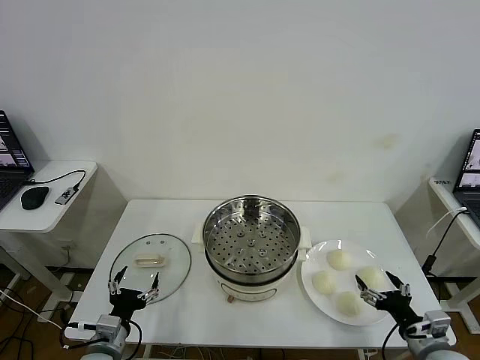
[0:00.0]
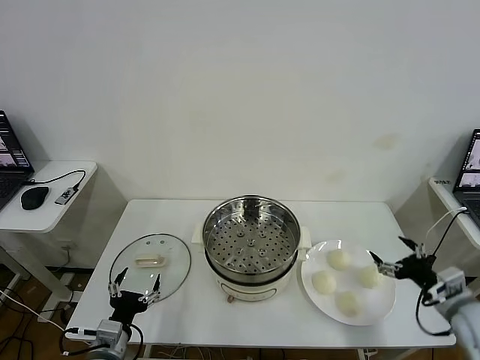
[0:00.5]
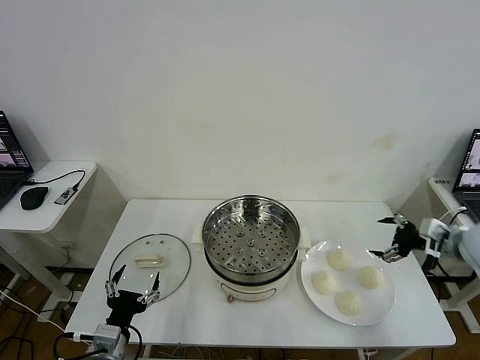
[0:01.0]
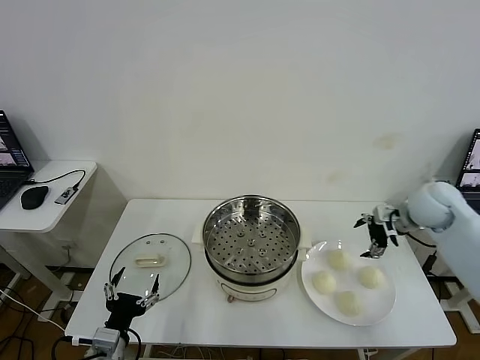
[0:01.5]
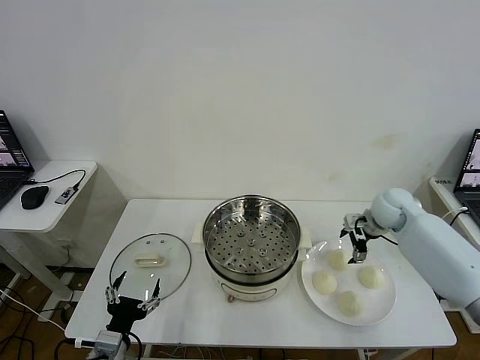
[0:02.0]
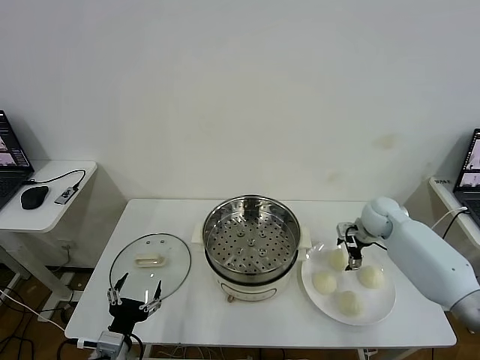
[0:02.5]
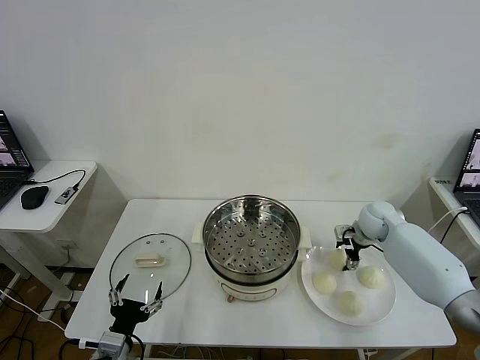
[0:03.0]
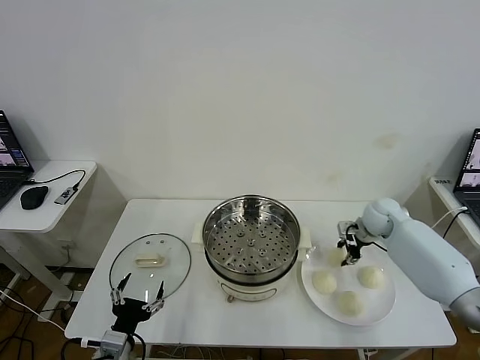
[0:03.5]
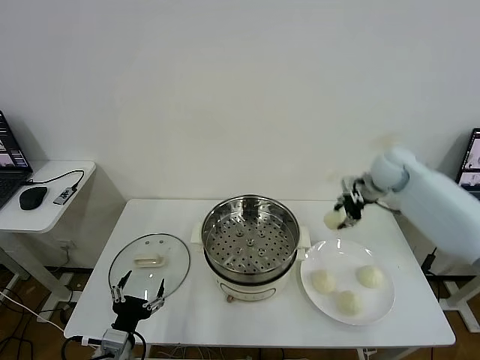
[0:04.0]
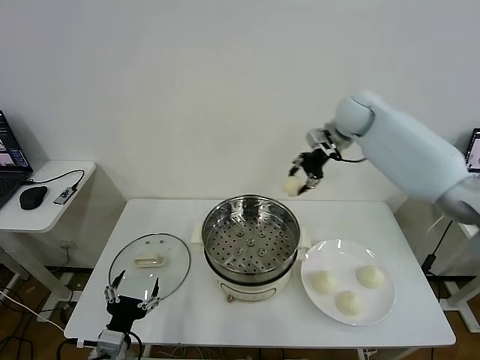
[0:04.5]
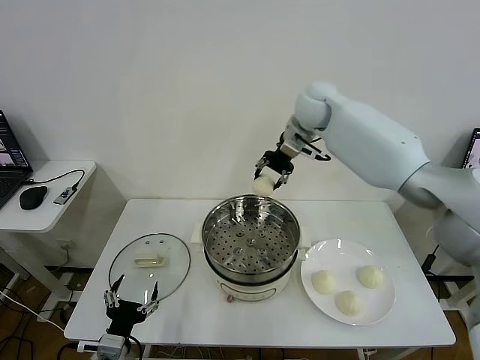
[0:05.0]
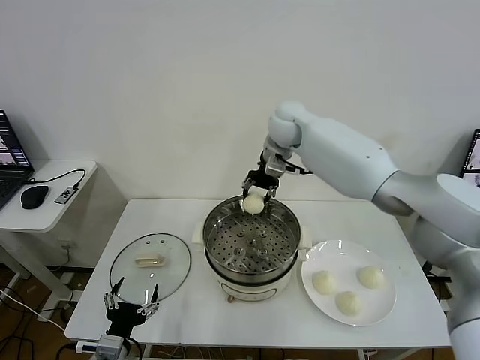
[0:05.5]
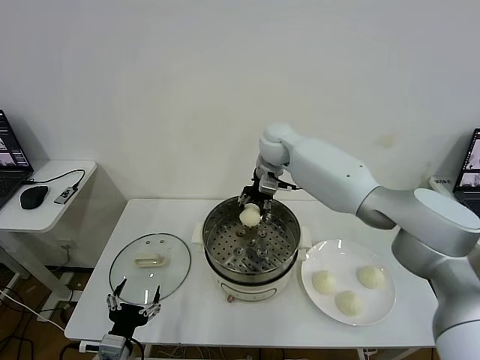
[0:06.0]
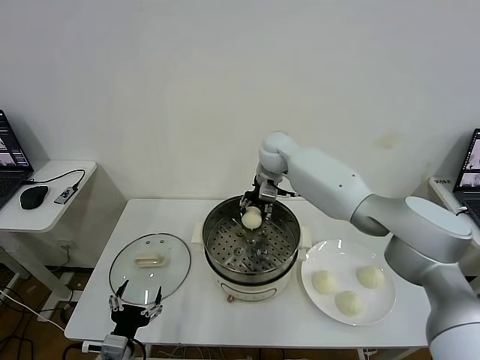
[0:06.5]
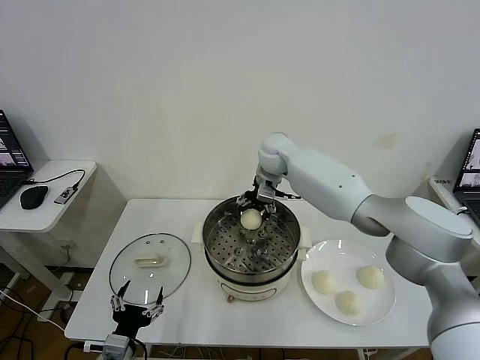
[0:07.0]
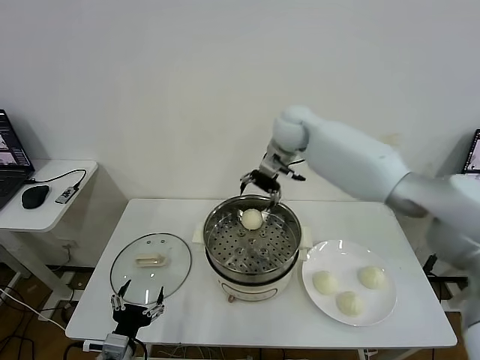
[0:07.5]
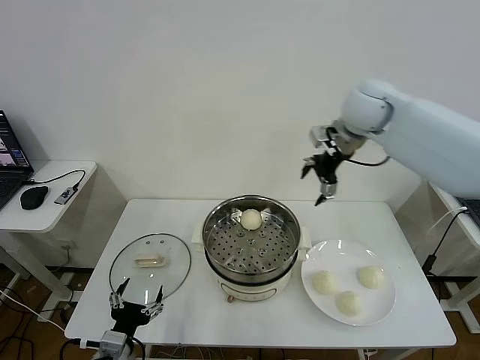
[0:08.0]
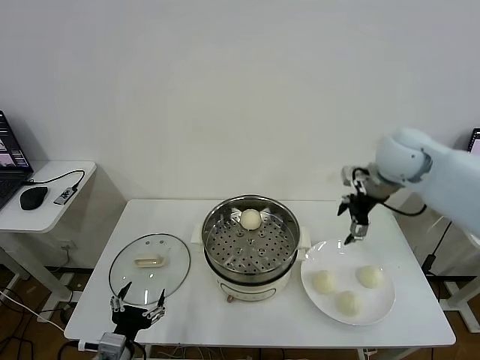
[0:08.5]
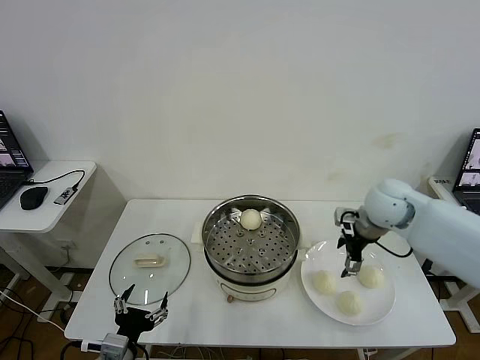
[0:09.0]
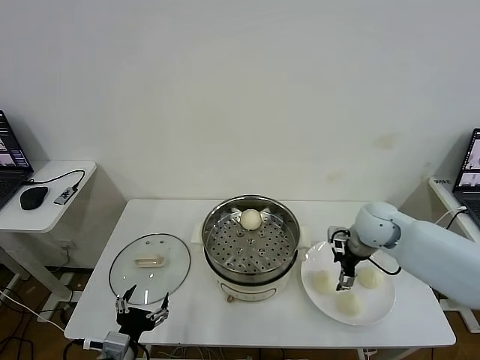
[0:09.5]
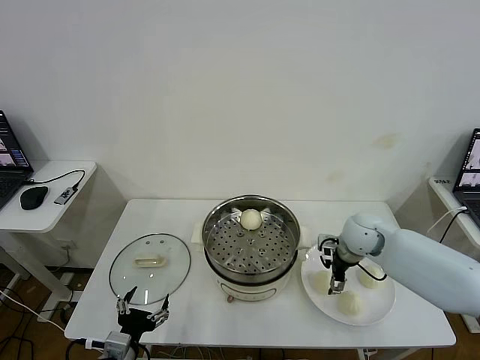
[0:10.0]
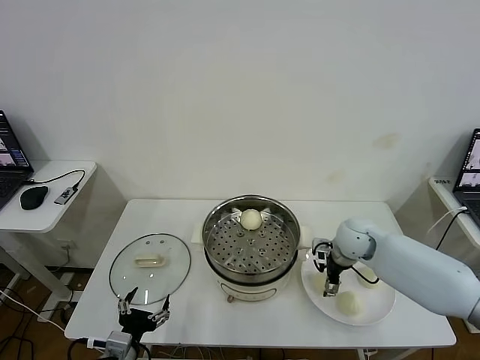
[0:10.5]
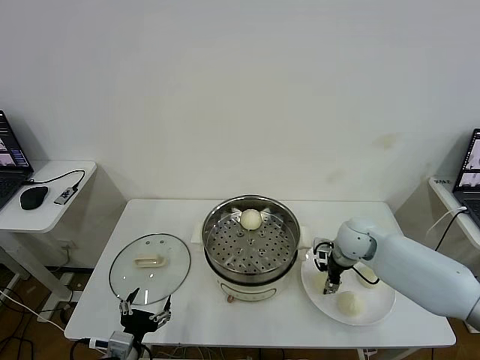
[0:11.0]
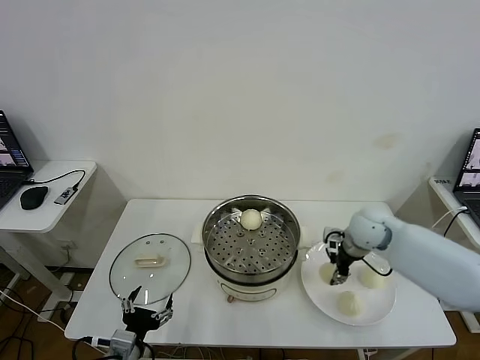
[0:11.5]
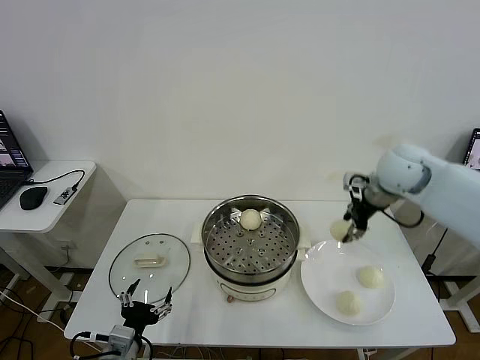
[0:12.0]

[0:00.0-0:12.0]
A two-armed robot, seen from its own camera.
Task of the whole recording: take steamed baozi put them in steamer then cover it.
Step, 0:00.0 to 0:03.0: Grasp the baozi in the plate with right gripper.
Step, 0:03.5 to 0:07.0: Place the baozi on the steamer with right gripper.
Step, 0:07.5 to 0:11.0: Grasp the baozi in the plate with right gripper.
0:02.0 to 0:04.0: The right gripper moves upward, roughly 15 cm, and closes its fingers.
0:04.0 to 0:06.0: The right gripper moves to the left, roughly 25 cm.
0:06.0 to 0:08.0: The right gripper heads to the right, upward and backward, covering some 25 cm, and opens up.
0:08.0 to 0:10.0: The right gripper heads downward, covering roughly 25 cm.
0:10.0 to 0:12.0: The right gripper goes some 20 cm upward, and closes.

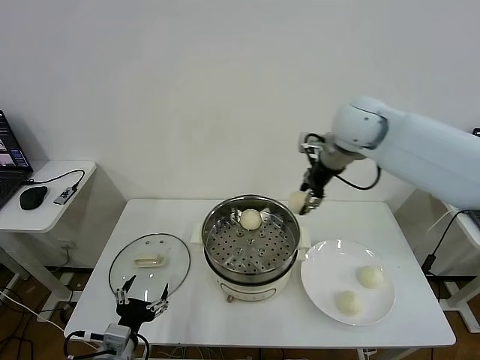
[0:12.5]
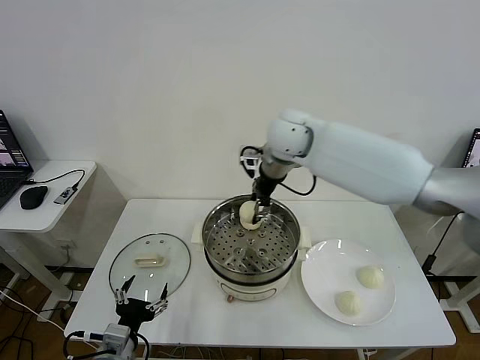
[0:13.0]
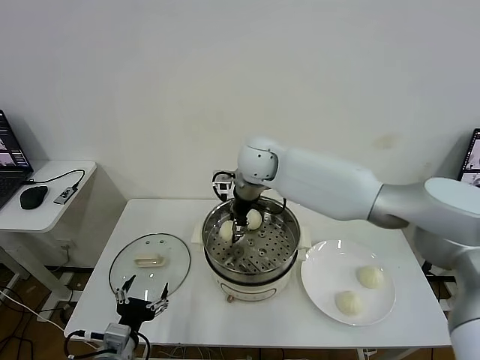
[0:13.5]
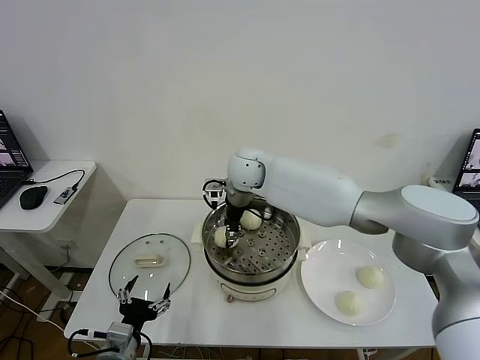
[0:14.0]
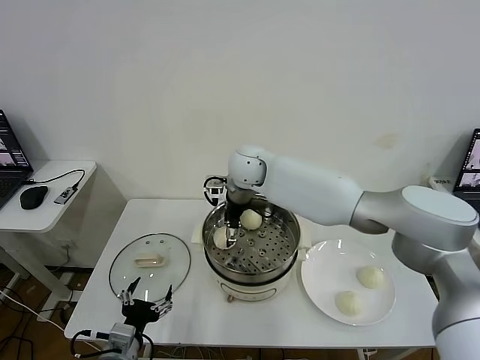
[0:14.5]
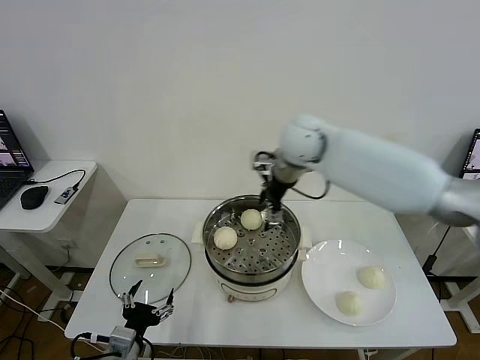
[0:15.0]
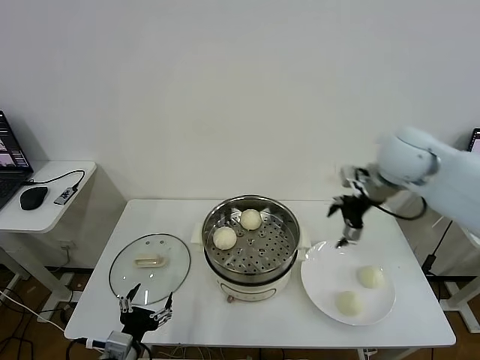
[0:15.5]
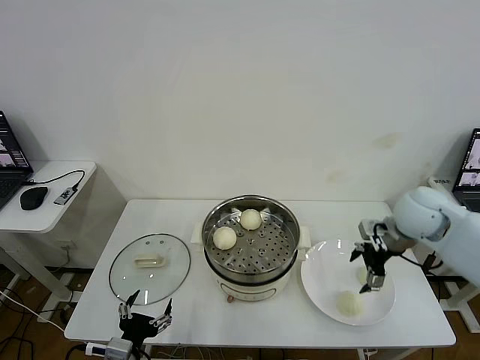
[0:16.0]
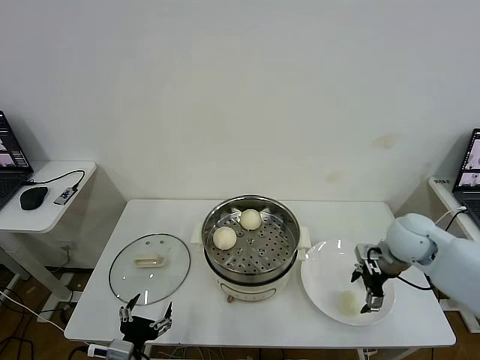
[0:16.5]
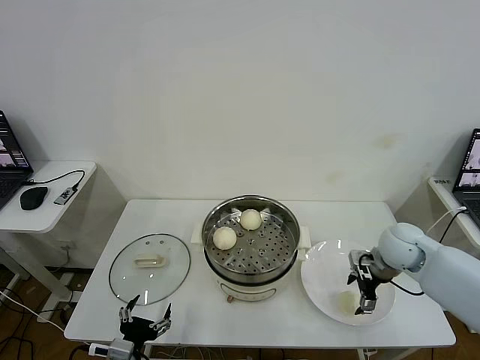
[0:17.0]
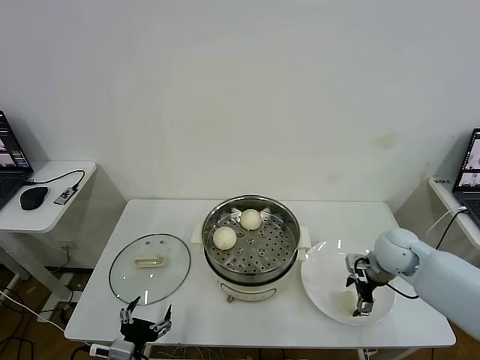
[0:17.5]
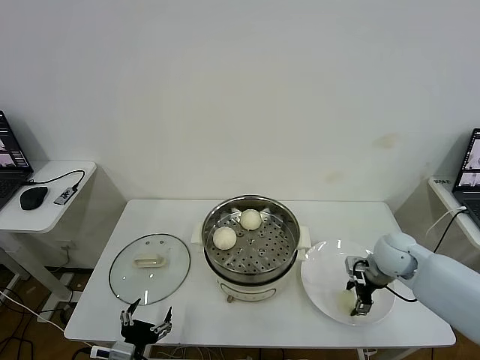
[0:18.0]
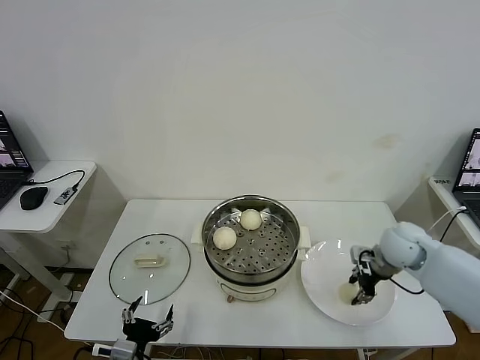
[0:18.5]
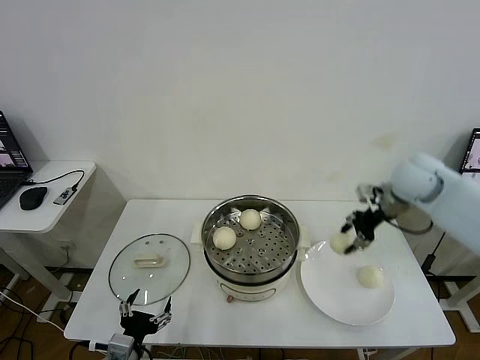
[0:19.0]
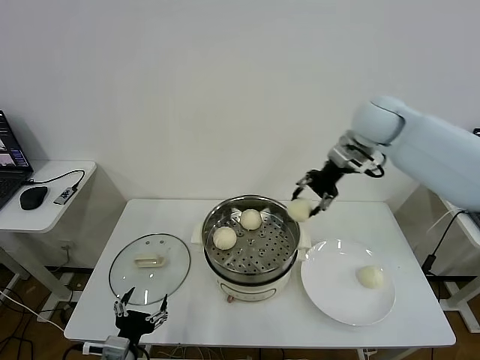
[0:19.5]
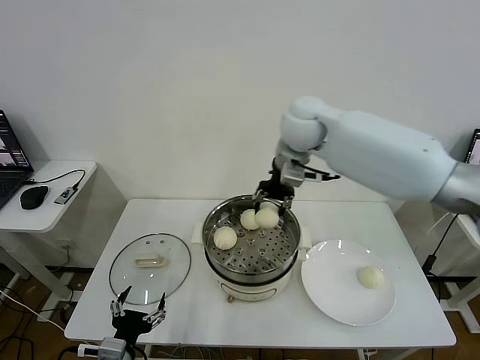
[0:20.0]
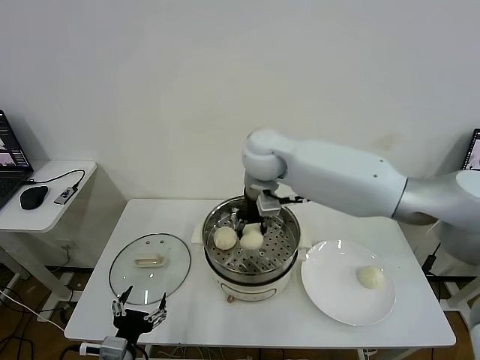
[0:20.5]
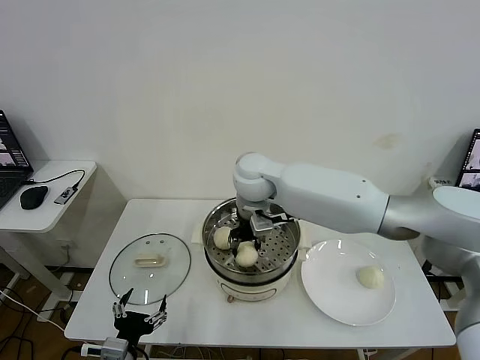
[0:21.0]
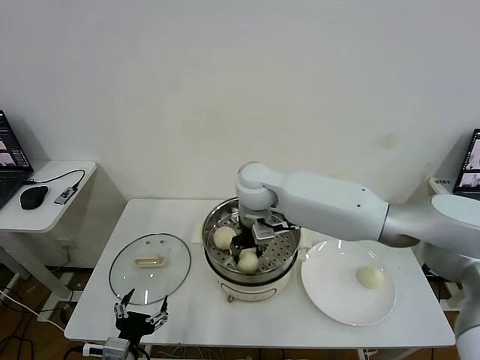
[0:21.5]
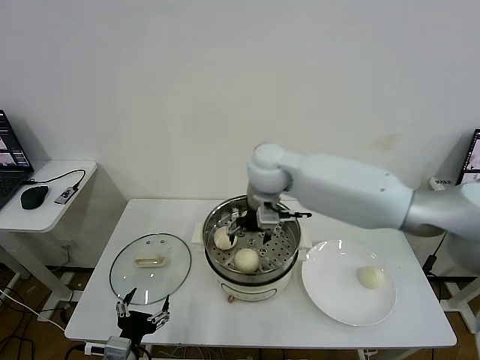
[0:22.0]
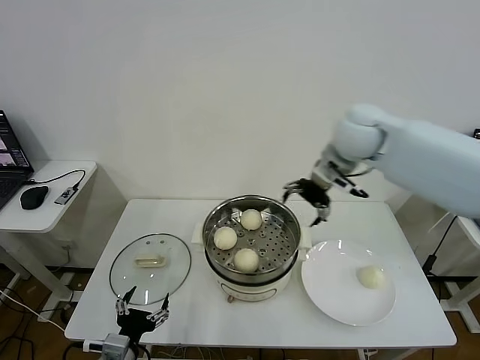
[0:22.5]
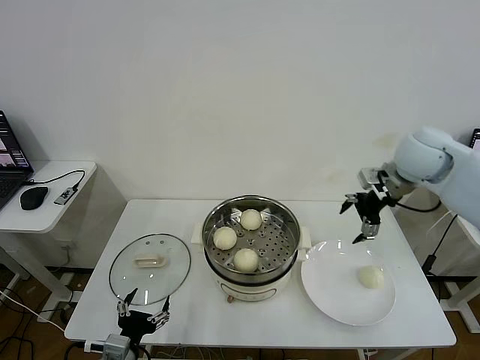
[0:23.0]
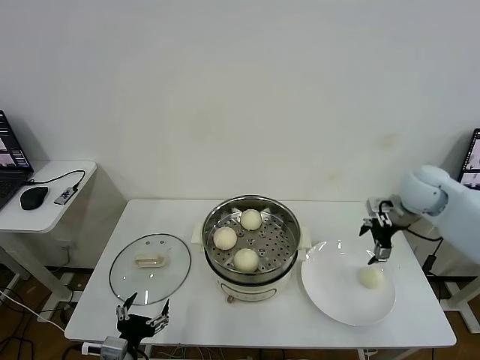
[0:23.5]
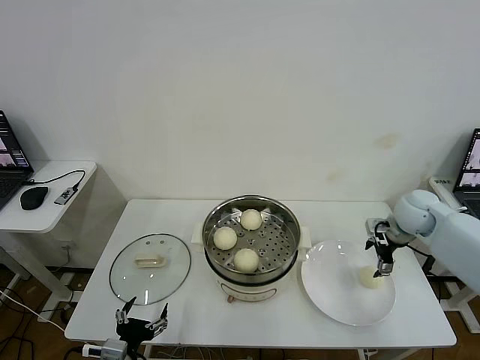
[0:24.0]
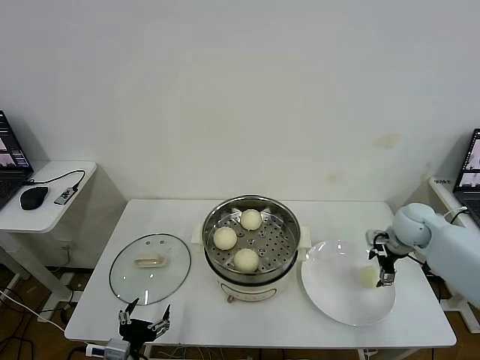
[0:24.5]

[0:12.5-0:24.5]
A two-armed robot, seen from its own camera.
Task of the whole recording: take steamed baozi put them in steamer then cover it.
Step, 0:12.5 to 0:14.5: Place the baozi on the steamer with right gripper.
Step, 0:15.0 to 0:18.0: Grasp the baozi in the plate with right gripper.
Step, 0:19.0 to 0:22.0: Place the baozi on the steamer with right gripper.
0:12.5 to 0:14.5: The right gripper goes about 20 cm to the left and downward, and opens its fingers.
0:14.5 to 0:16.5: The right gripper is displaced to the right and backward by about 35 cm.
0:16.5 to 0:18.5: The right gripper closes.
0:18.5 to 0:20.5: The right gripper moves to the left and upward, some 35 cm.
0:20.5 to 0:22.5: The right gripper heads to the right, covering roughly 20 cm, and opens.
0:22.5 to 0:24.5: The right gripper moves downward and to the right, approximately 30 cm.

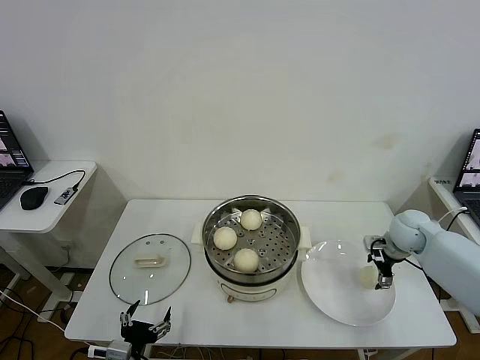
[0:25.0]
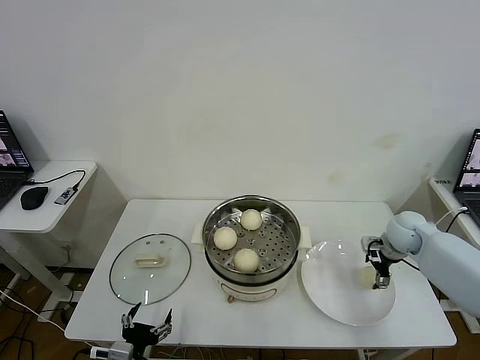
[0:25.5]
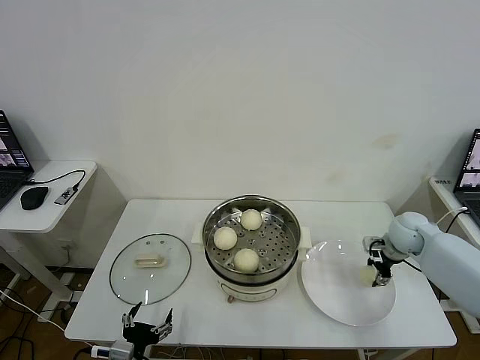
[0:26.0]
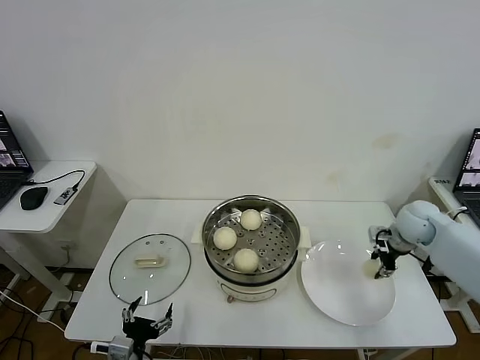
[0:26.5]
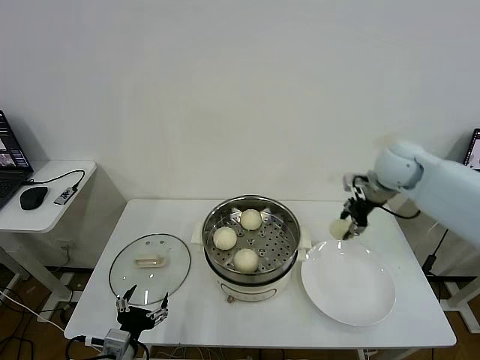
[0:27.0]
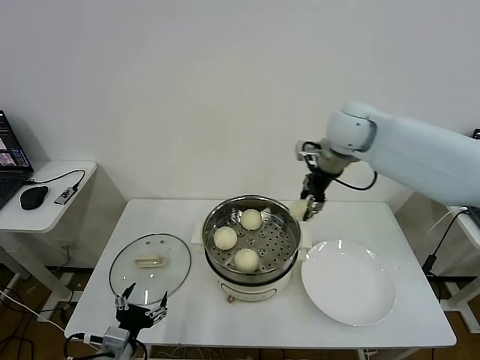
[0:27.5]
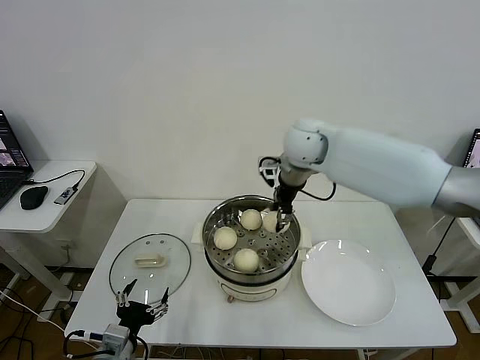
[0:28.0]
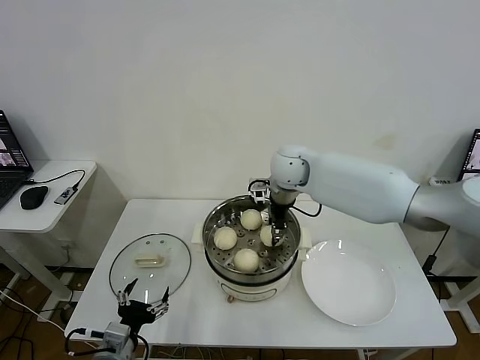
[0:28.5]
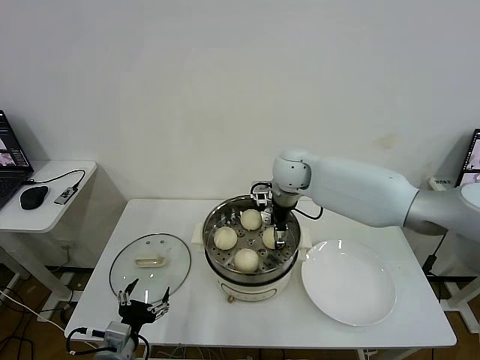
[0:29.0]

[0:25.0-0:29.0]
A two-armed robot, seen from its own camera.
Task of the whole recording: take steamed baozi put them in steamer then cover it.
0:25.0 to 0:27.0: The right gripper goes some 20 cm upward and to the left, and closes.
0:27.0 to 0:29.0: The right gripper moves to the left, about 20 cm, and opens.
